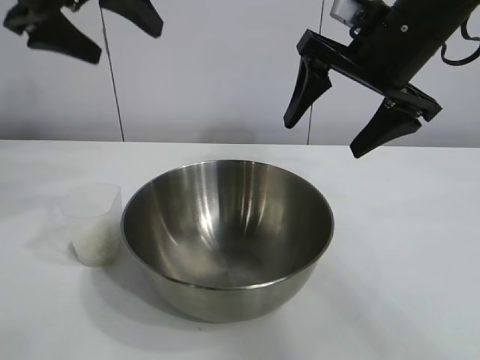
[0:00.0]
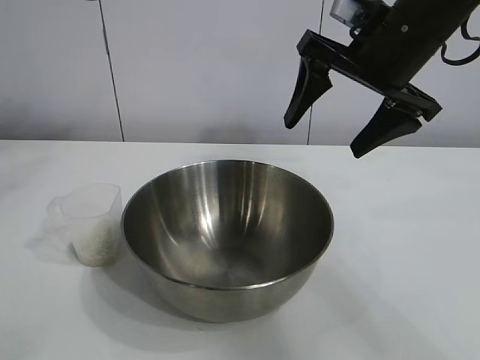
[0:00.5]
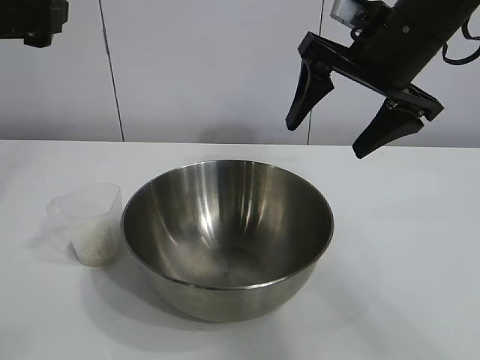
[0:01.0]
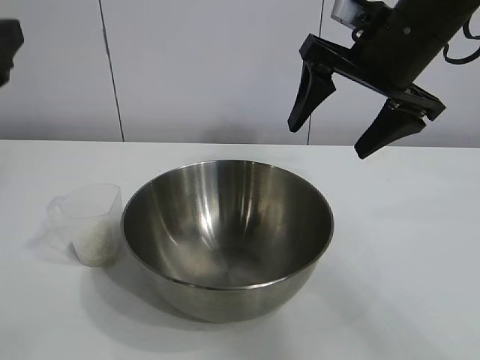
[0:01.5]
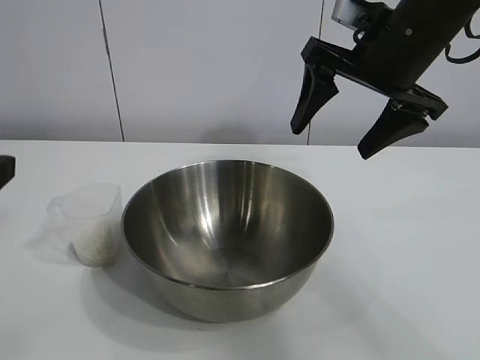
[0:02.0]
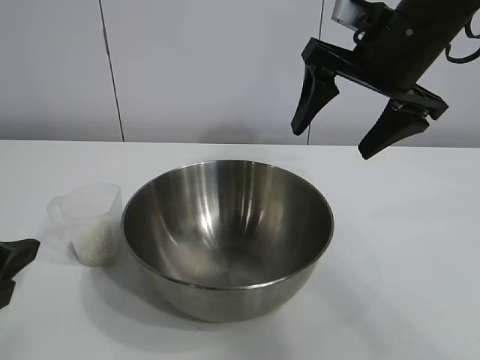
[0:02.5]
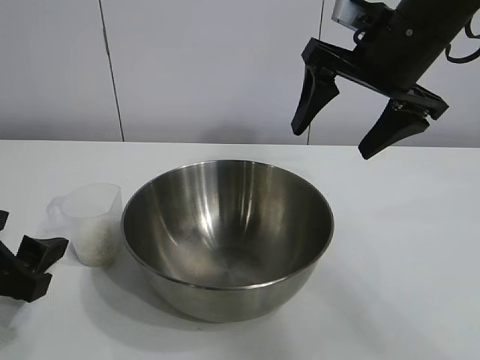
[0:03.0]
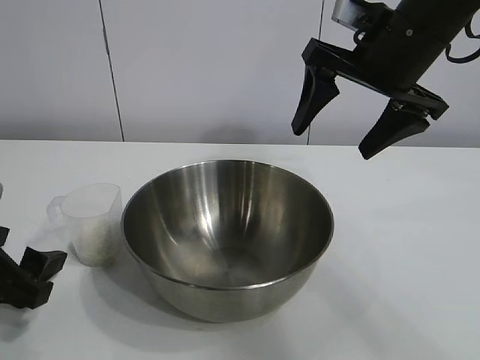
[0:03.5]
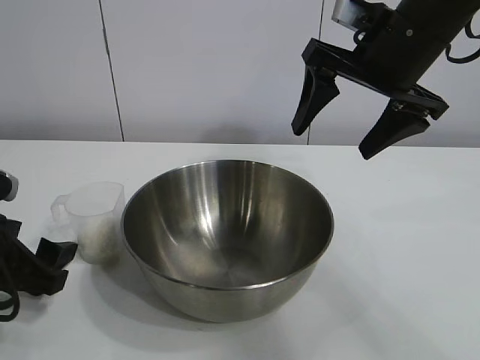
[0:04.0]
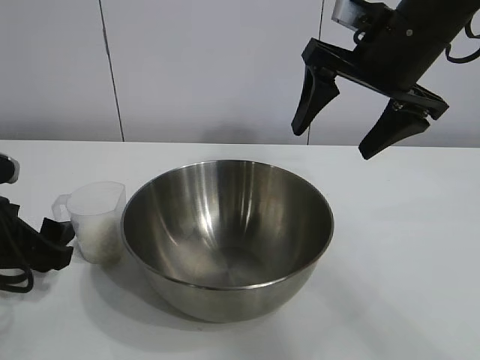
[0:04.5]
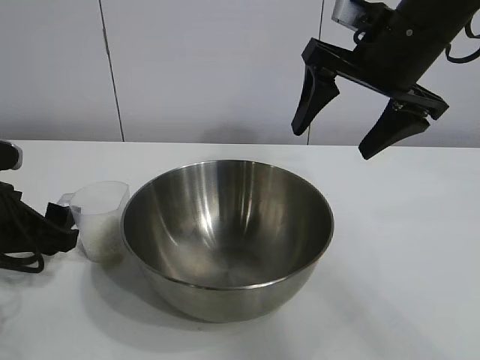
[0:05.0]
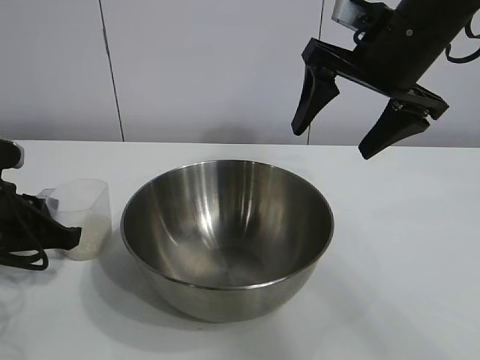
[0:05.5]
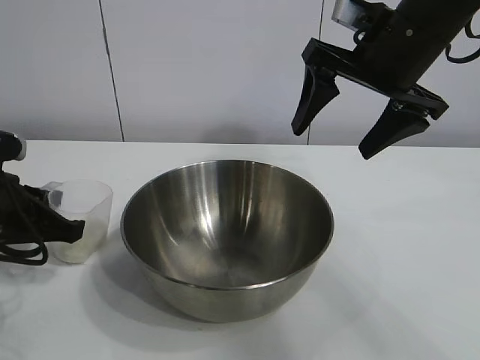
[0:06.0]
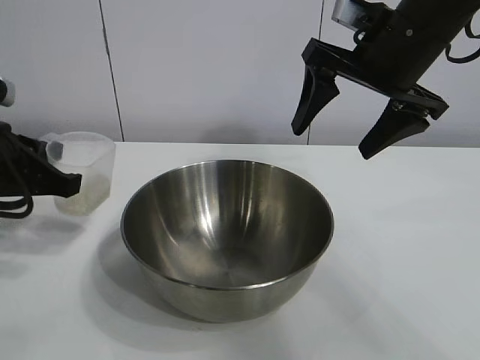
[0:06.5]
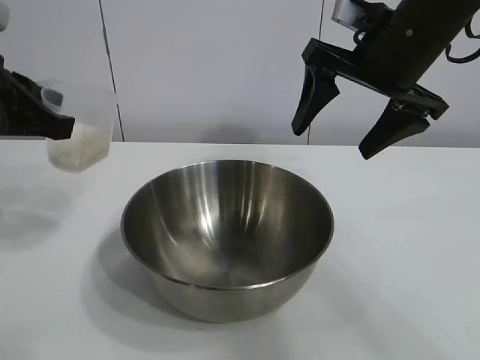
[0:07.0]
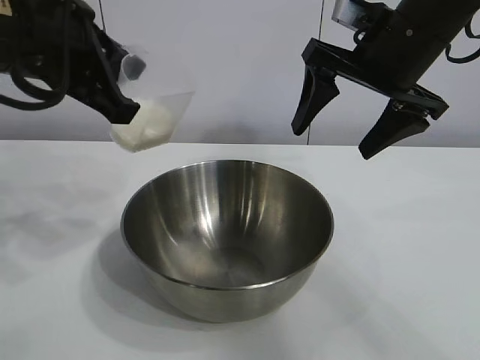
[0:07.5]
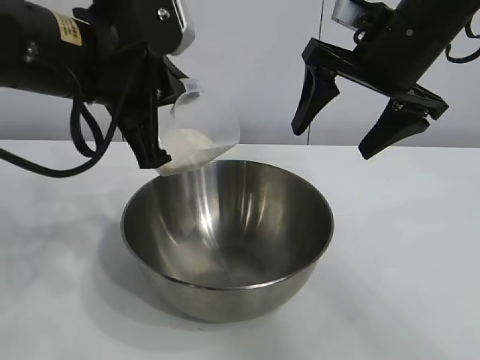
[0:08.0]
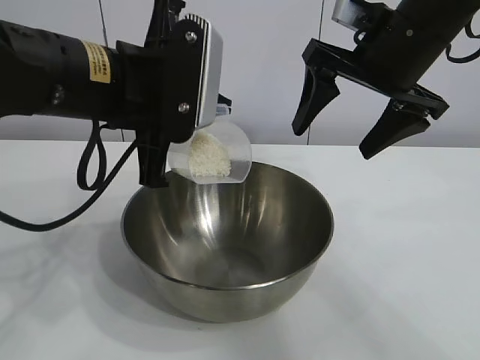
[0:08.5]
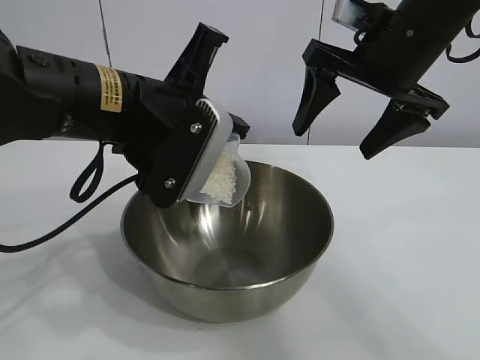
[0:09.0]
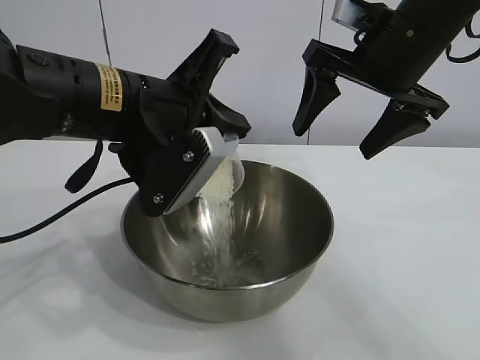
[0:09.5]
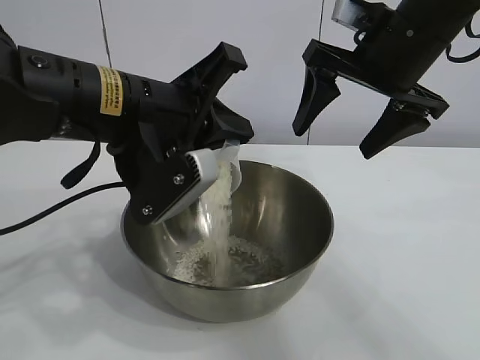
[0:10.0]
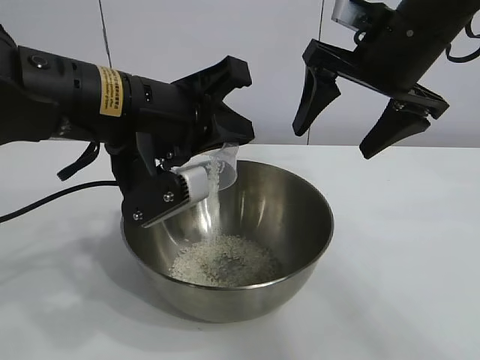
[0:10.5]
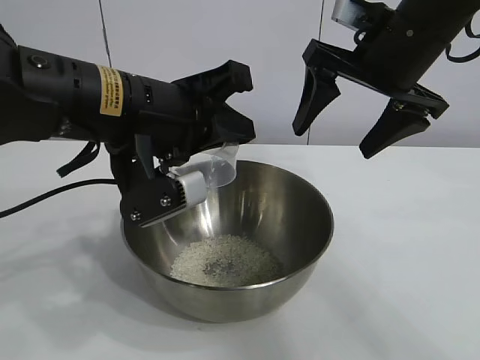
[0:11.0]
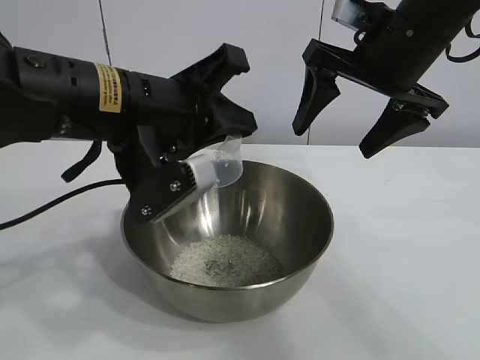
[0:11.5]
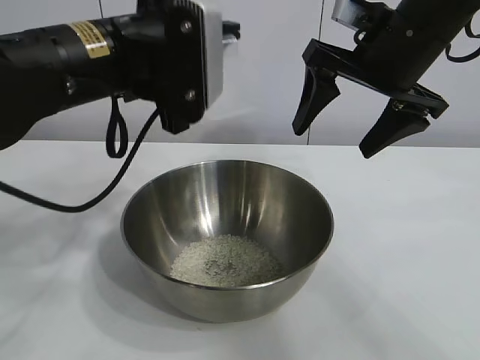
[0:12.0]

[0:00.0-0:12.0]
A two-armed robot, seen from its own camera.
Task of the whole recording: the right gripper grasp the rice container and place it in the center of the table, the left gripper grasp the rice scoop and pour the rice into the rice container.
Step, 0:00.0 to 0:05.5: Grasp the cup with rice in it with left gripper.
Step, 0:06.0 to 0:11.0: Pour the rice from the cup into the bowl with the left gripper.

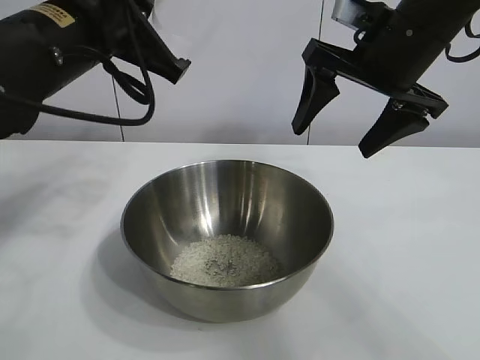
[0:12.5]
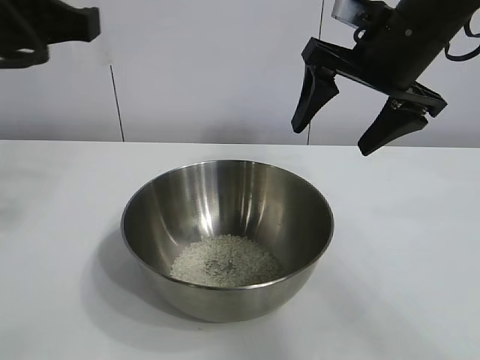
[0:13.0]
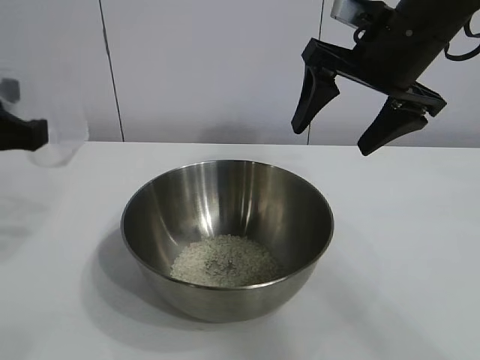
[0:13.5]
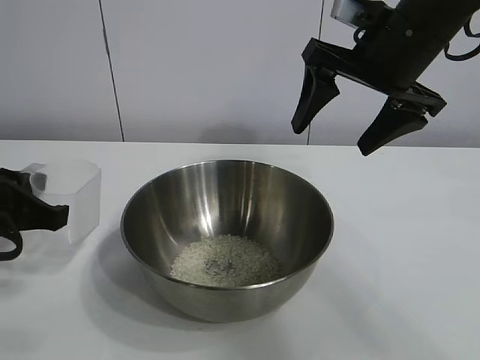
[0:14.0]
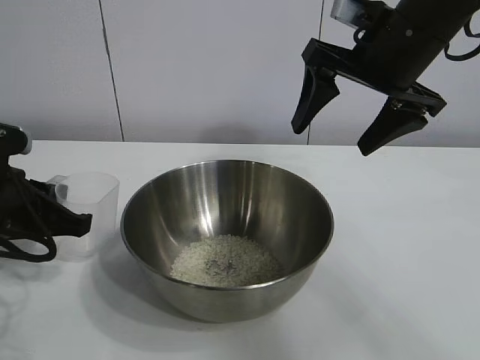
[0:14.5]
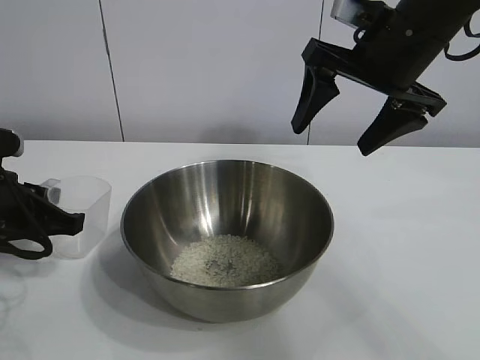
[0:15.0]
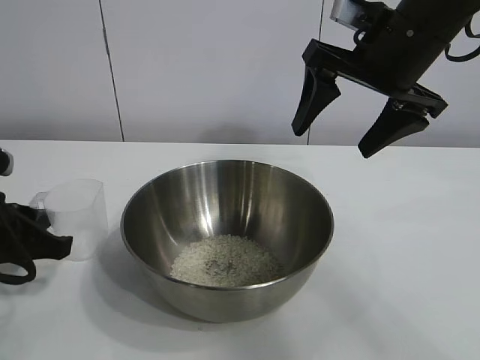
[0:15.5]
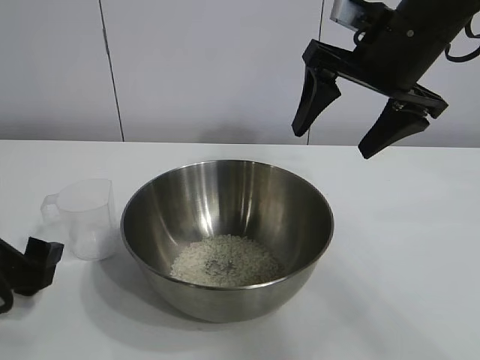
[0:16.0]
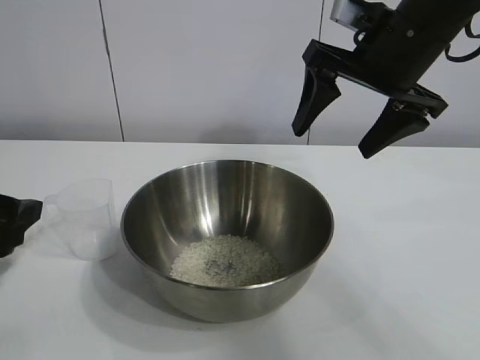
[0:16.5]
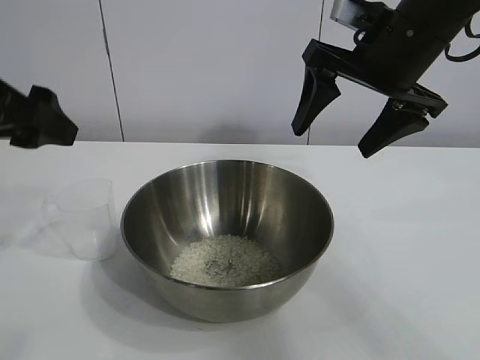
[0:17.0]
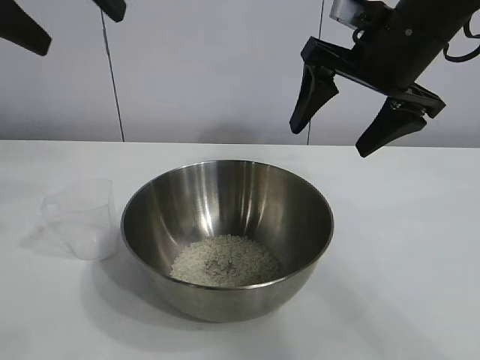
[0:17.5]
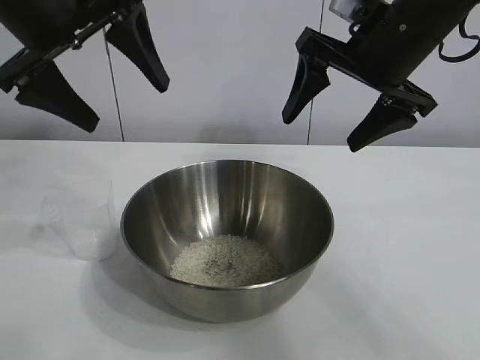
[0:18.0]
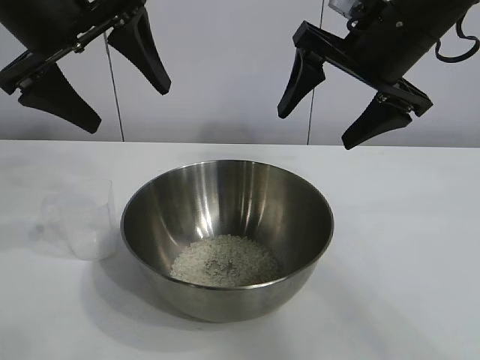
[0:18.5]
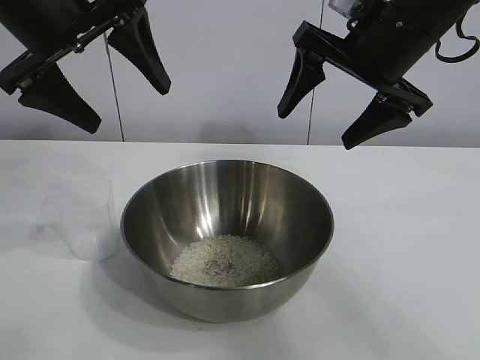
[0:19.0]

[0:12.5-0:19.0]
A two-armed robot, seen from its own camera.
Task of the whole recording: the right gripper grasp the rice container and place it in the center of the table, the left gripper grasp the rice scoop and pour the rice into the rice container.
Step, 0:12.5 to 0:15.5: Place the cup on the table with the left gripper.
